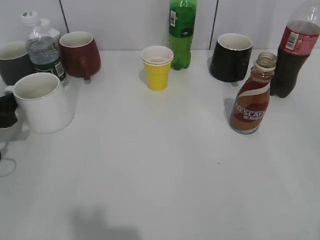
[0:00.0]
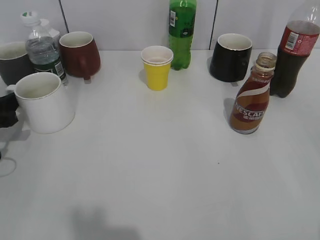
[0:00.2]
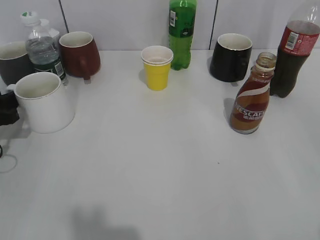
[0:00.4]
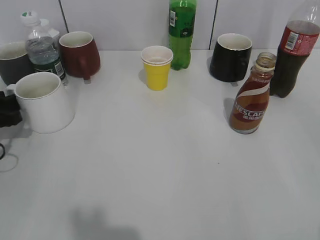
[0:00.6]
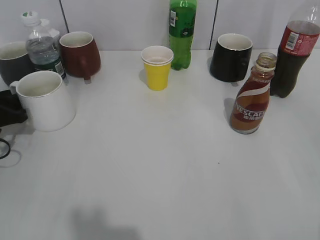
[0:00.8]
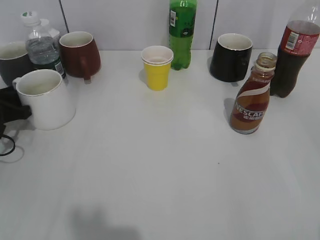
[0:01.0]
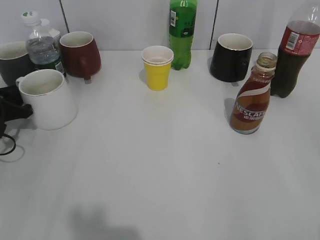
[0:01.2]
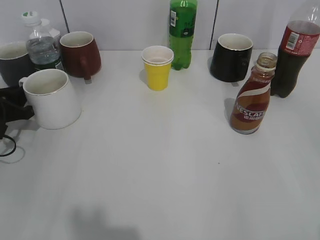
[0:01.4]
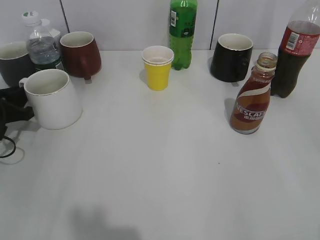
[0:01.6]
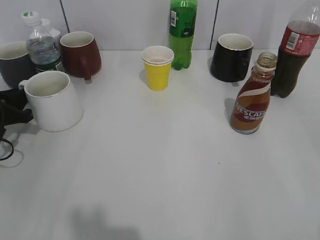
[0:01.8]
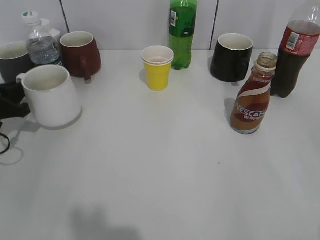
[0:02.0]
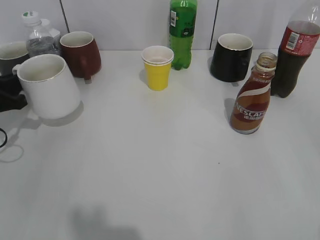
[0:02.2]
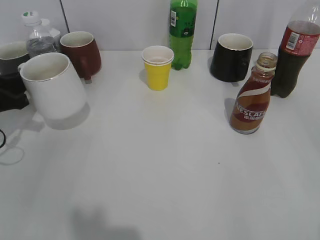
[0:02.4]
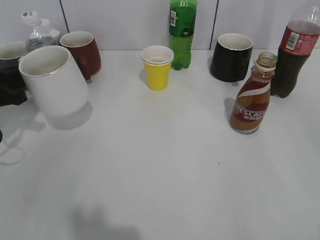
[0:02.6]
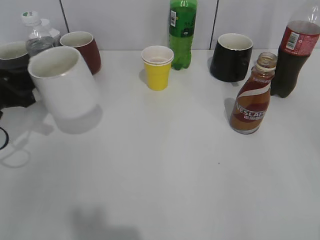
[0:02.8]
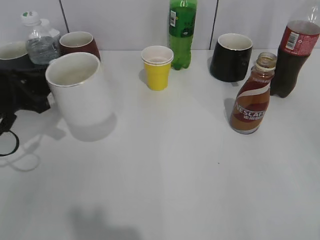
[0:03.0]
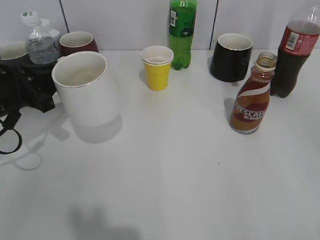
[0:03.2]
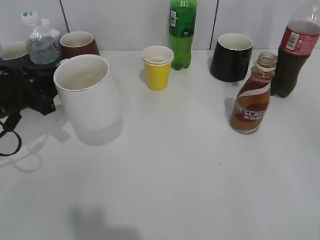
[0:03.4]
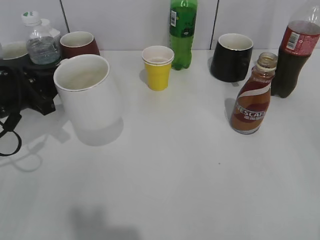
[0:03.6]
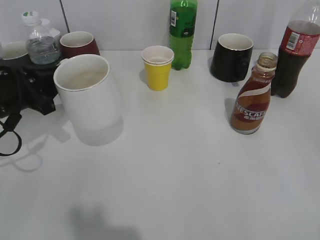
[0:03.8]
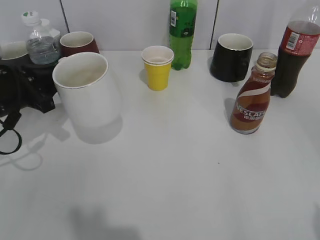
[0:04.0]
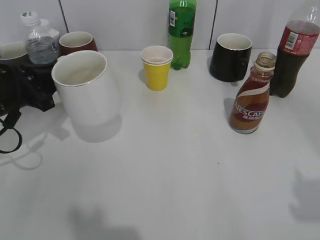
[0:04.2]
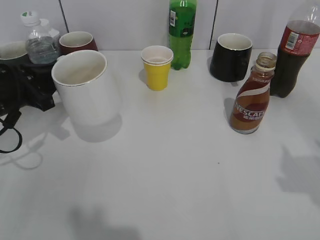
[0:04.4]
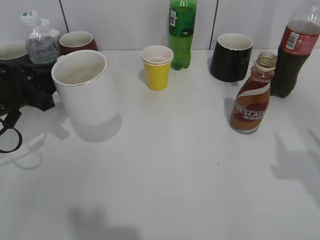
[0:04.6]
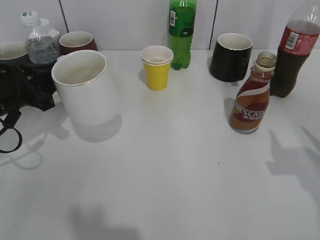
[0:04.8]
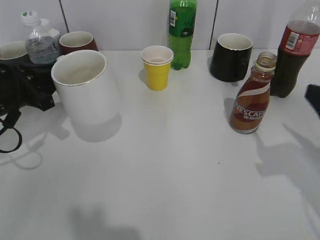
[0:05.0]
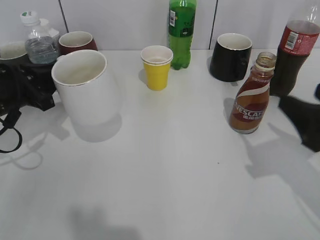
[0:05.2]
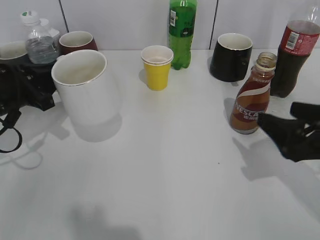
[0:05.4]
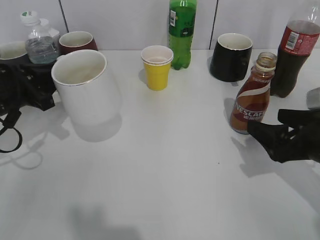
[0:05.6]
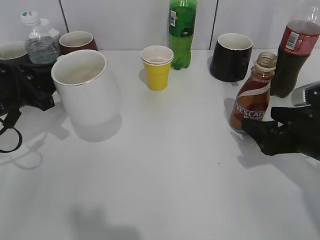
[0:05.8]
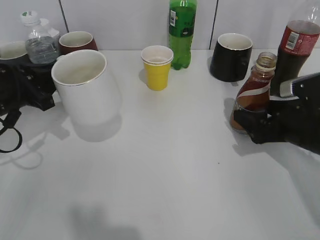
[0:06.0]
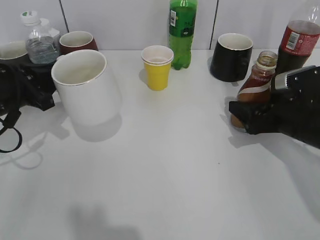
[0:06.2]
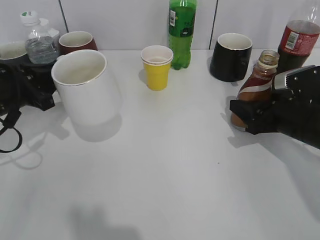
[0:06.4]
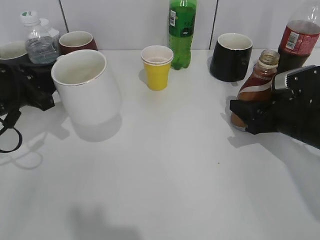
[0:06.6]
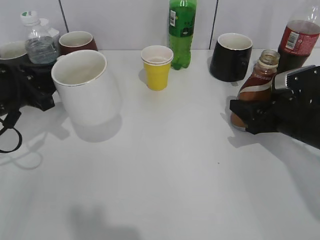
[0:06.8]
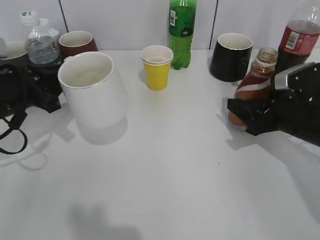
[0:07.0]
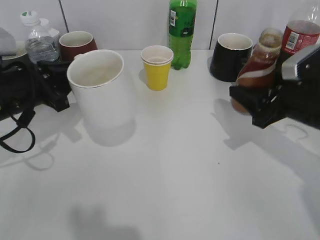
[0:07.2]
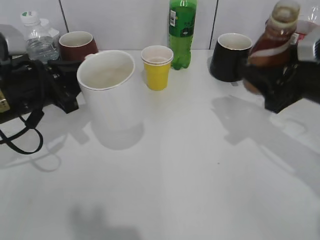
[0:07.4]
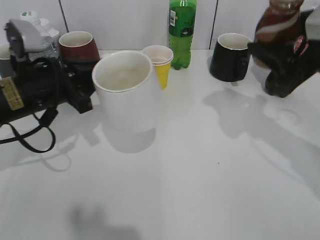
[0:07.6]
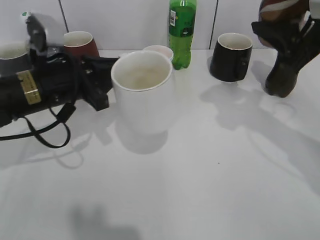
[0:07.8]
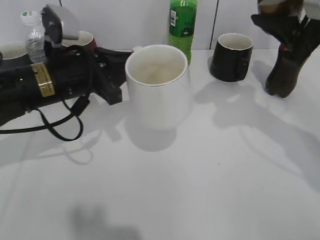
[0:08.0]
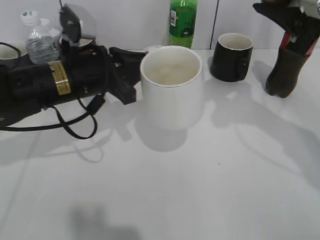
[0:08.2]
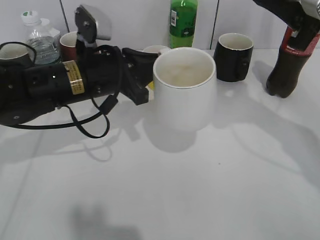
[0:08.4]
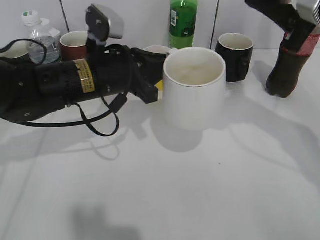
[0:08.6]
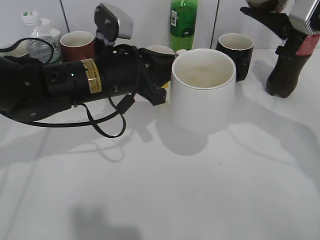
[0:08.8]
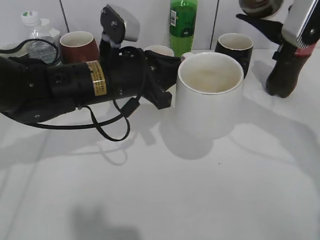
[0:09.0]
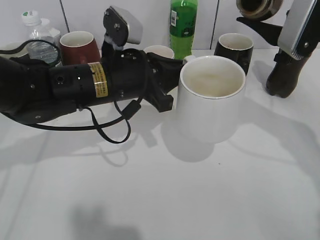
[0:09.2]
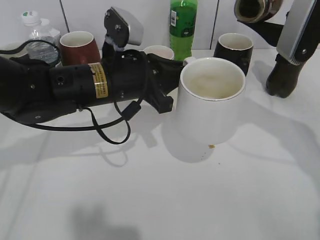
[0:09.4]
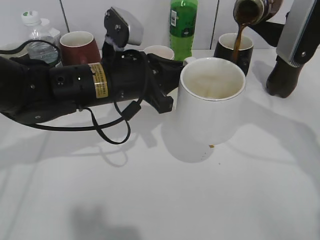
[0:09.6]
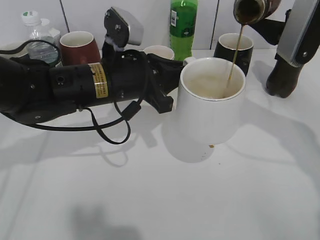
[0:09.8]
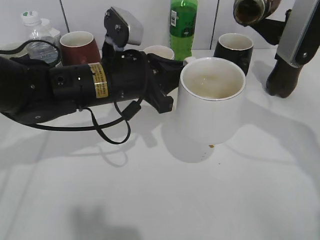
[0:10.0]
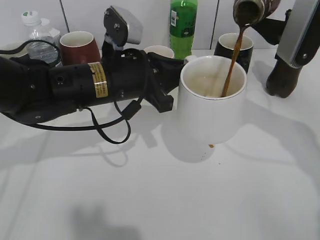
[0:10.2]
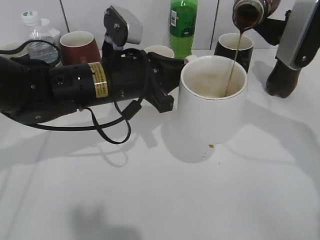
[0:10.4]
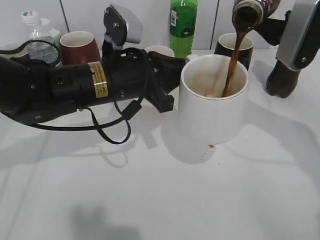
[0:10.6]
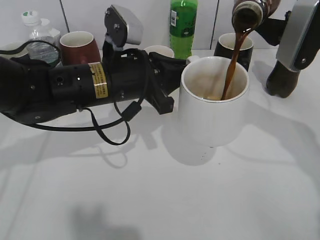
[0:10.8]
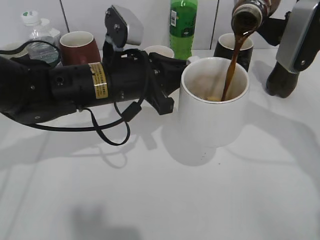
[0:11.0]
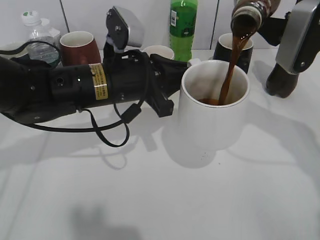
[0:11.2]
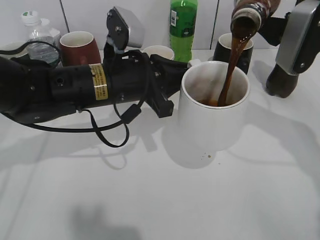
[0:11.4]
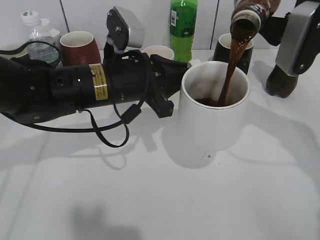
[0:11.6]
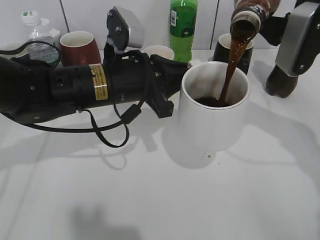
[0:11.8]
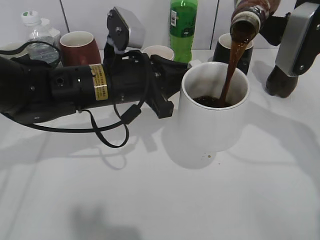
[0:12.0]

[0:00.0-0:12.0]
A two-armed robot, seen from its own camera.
Step, 0:02.0 to 0:03.4: Lift the white cup with left gripper.
Step, 0:03.6 to 0:06.8: Grasp the bottle with coffee with right gripper.
0:00.0 to 0:01.6: The left gripper closes up.
0:01.6 to 0:03.0: The left gripper moves upward and to the right, some 10 cm.
0:04.4 to 0:06.0: The right gripper shifts some 25 cm downward and forward, and opens.
0:06.0 to 0:07.6: The right gripper travels upward by approximately 15 cm, and closes. Meanwhile the left gripper moves to the right, roughly 5 cm.
0:07.6 to 0:09.0: The left gripper is displaced to the right by about 10 cm.
0:09.0 to 0:10.4: There are only small adjustments of the grippers.
0:10.4 to 0:12.0: There are only small adjustments of the grippers.

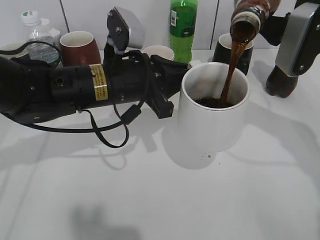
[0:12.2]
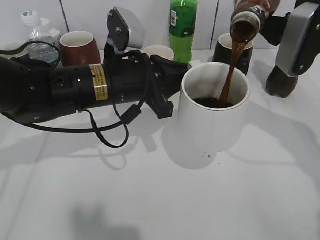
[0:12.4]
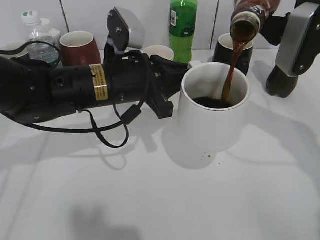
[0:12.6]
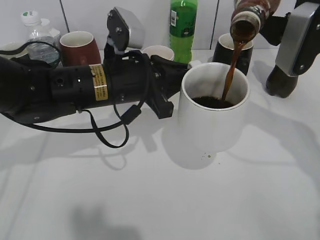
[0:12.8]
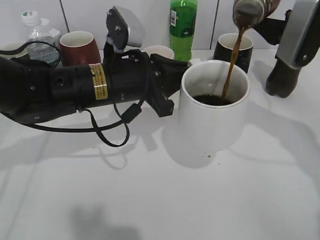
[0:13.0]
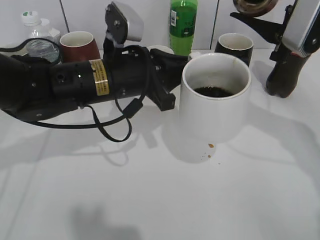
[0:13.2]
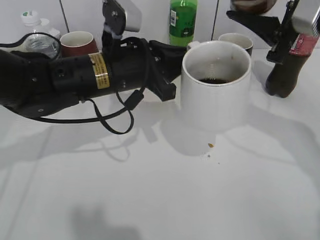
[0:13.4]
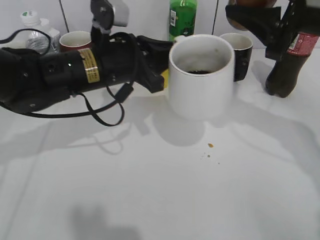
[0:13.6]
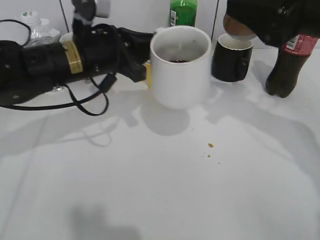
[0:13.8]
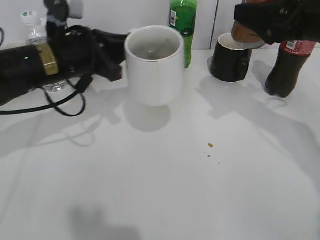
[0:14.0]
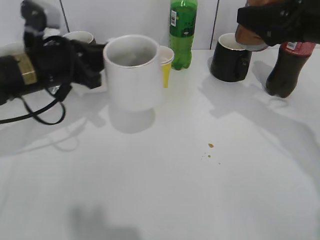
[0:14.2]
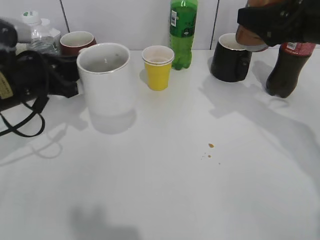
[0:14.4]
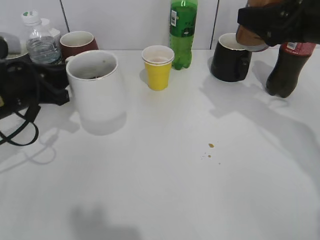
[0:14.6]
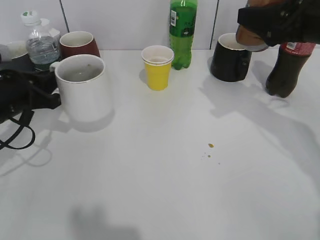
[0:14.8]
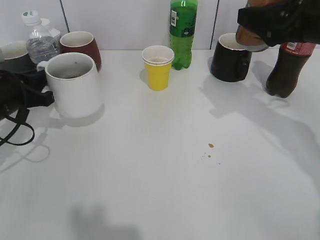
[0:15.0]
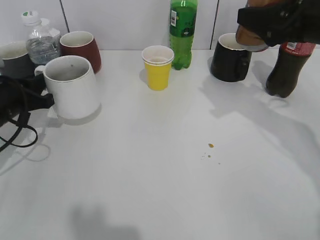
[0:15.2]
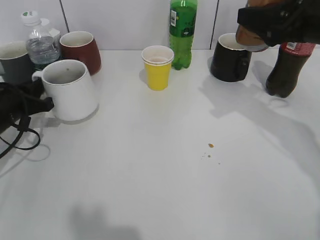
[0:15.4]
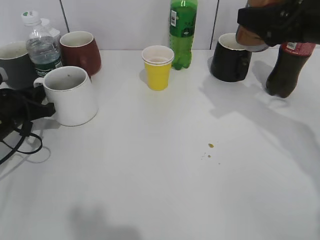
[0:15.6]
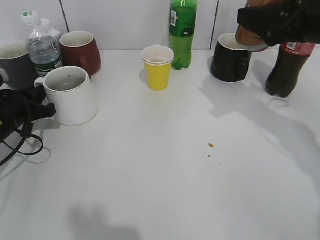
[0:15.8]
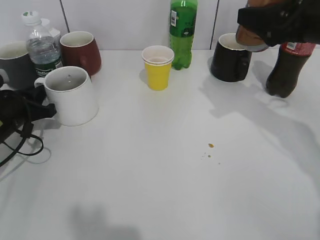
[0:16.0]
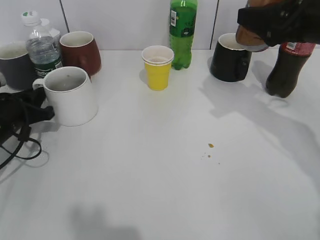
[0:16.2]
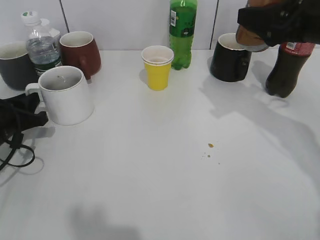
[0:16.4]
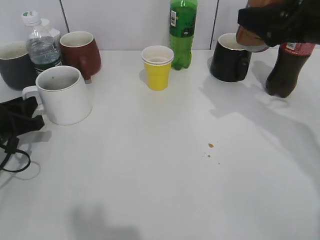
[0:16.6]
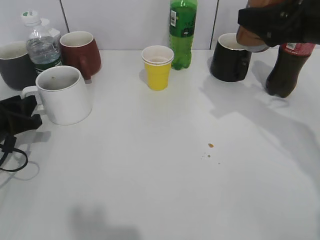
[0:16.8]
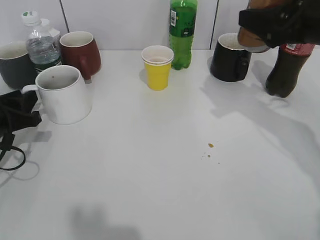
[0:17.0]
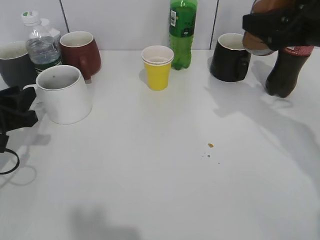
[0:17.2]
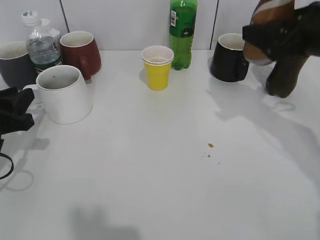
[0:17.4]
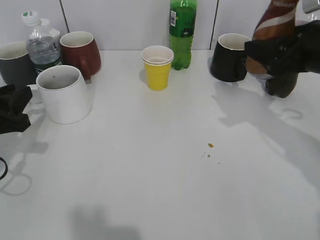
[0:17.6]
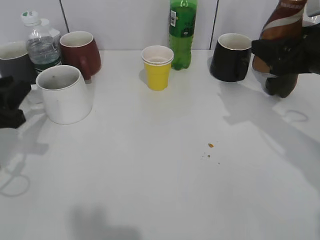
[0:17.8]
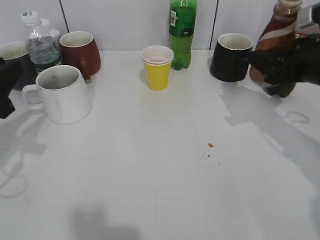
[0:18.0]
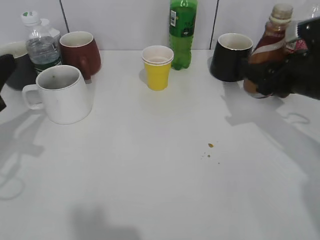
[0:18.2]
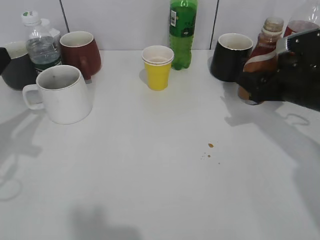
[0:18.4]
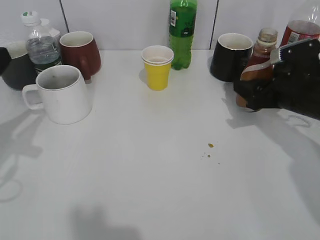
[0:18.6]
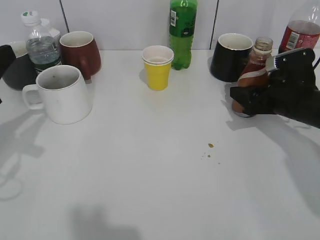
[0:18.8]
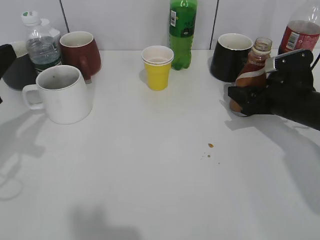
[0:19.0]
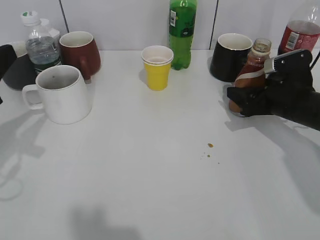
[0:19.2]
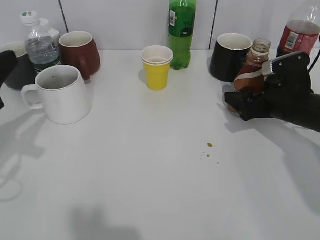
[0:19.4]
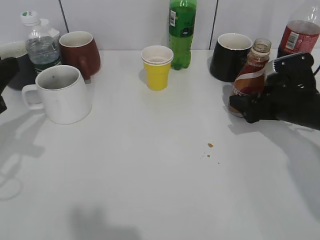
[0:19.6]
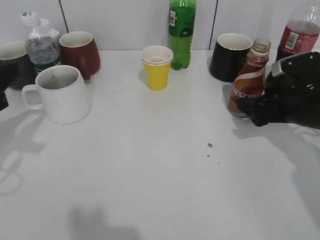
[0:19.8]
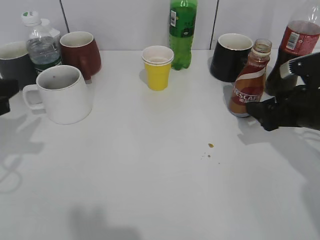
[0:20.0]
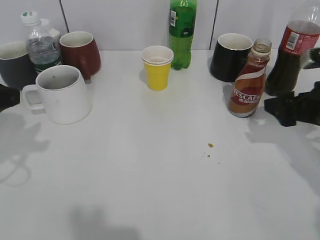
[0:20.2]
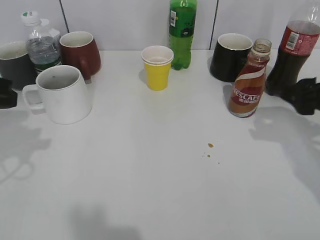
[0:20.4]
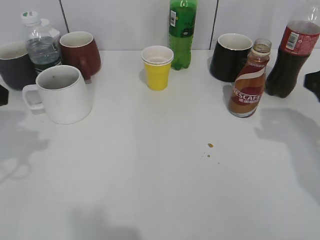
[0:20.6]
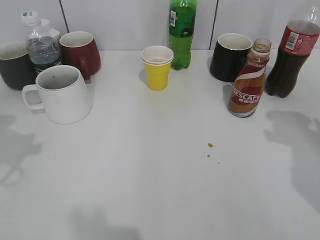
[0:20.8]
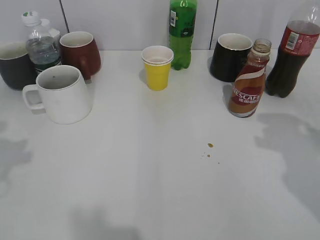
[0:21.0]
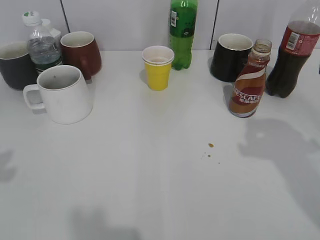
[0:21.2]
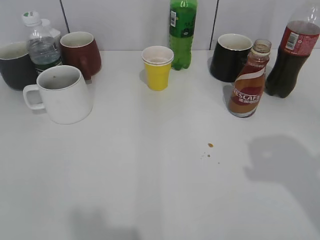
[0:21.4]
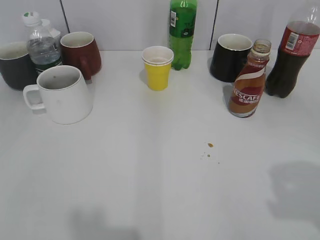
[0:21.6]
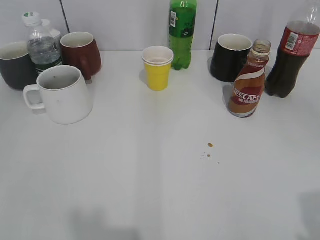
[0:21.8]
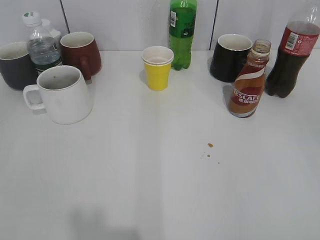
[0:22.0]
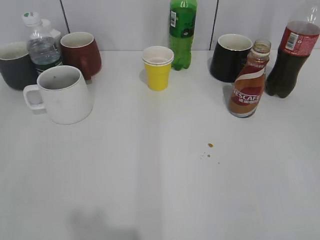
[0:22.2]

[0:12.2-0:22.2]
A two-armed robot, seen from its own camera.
Step, 0:13.4 to 0:17.0: Place the white cup on the table with left gripper.
Step, 0:17.2 to 0:19.8: Place the coffee bottle on the table with right gripper.
0:13.6 to 0:15.0: The left gripper is displaced to the left by roughly 20 cm.
0:15.0 to 0:16.4: The left gripper shifts by about 5 cm.
0:16.4 to 0:18.0: The right gripper travels downward by roughly 5 cm. Meanwhile the left gripper is displaced upward and backward by roughly 10 cm.
0:18.0 to 0:19.4: The right gripper shifts approximately 10 cm downward, and opens up.
0:19.4 to 0:20.8: The left gripper goes approximately 10 cm upward; the right gripper is displaced upward and backward by roughly 15 cm, and closes up.
0:20.8 to 0:22.2: The left gripper moves backward, approximately 20 cm.
